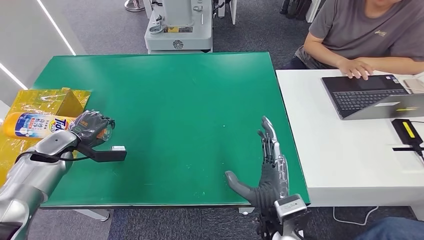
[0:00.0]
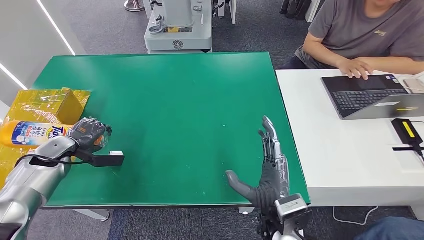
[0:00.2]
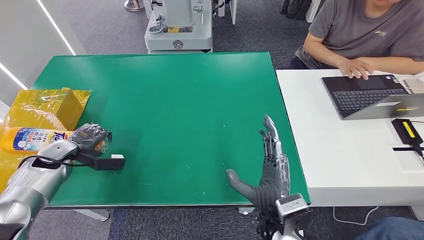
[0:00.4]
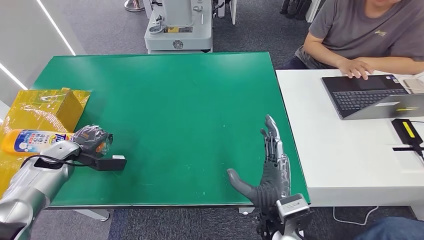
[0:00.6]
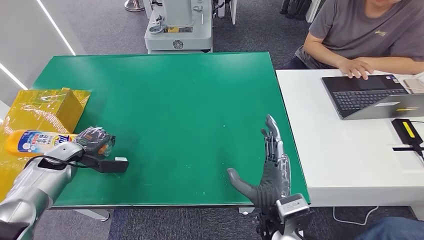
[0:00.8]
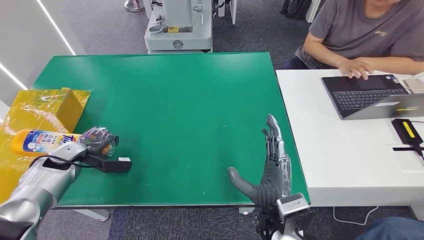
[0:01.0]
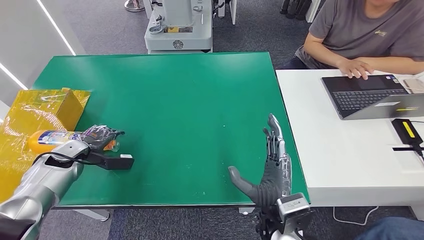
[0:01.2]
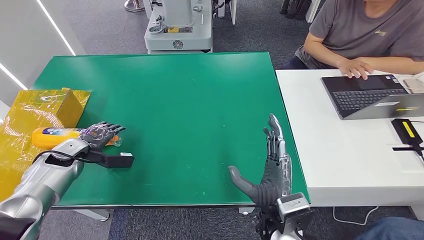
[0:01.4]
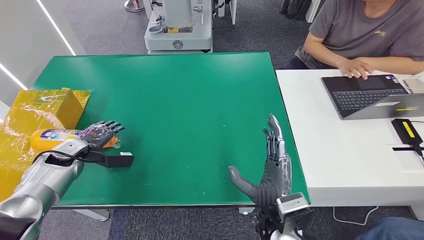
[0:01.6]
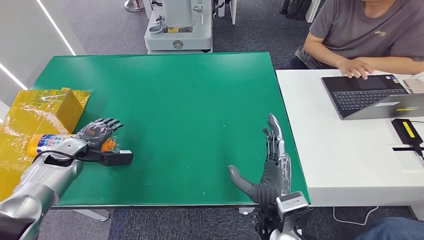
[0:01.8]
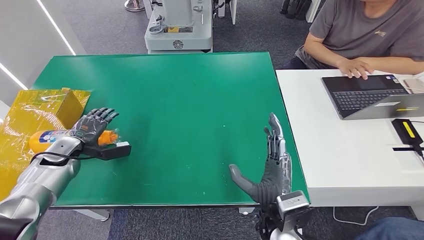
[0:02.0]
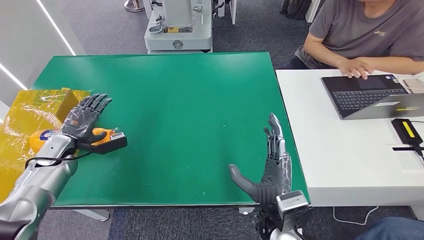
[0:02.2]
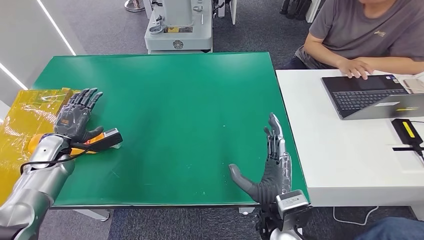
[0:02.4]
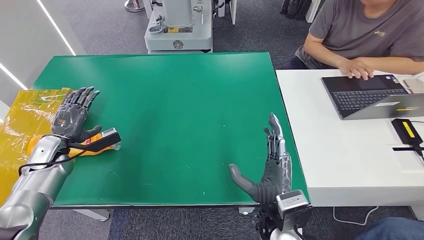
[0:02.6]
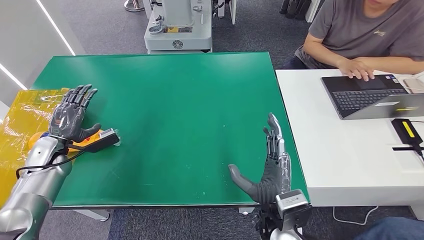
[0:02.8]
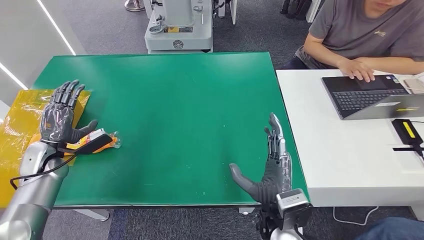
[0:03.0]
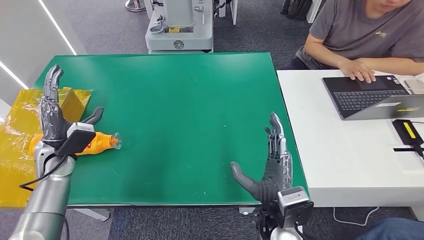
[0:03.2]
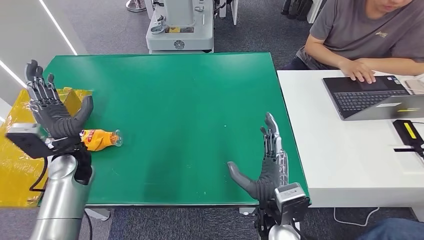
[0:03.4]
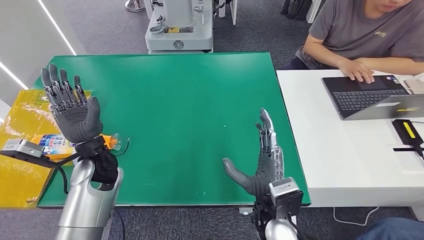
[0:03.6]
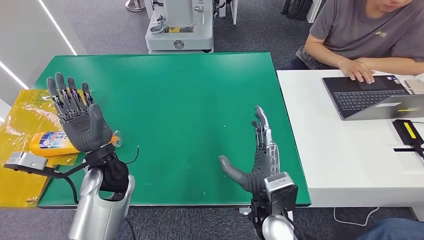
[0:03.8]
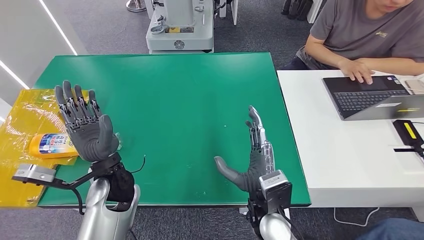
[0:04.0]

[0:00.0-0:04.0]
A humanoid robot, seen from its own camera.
Step, 0:00.0 to 0:04.0: Turn the bottle to the front side.
0:00.0 to 0:01.4: There are only small adjustments of the hands.
0:02.6 to 0:04.0: The left hand heads to the right, covering approximately 25 cm.
